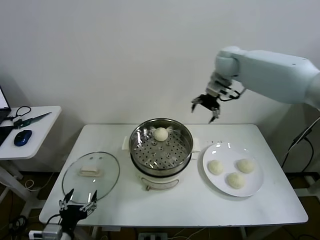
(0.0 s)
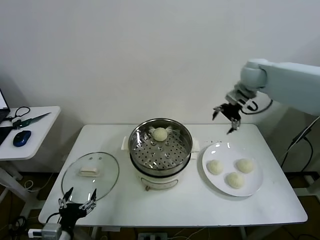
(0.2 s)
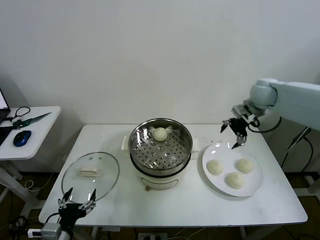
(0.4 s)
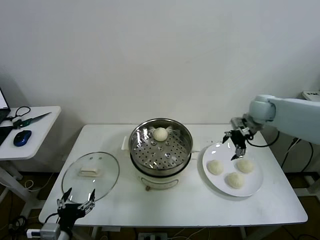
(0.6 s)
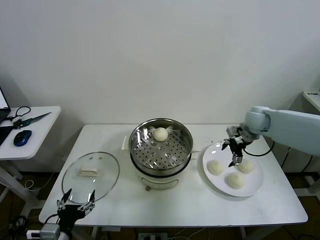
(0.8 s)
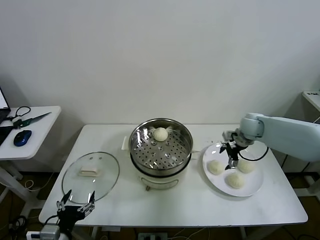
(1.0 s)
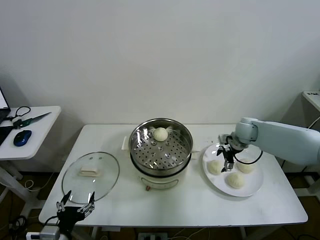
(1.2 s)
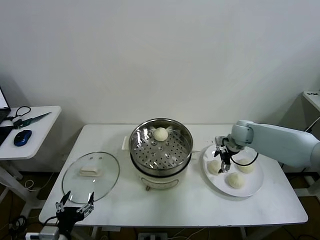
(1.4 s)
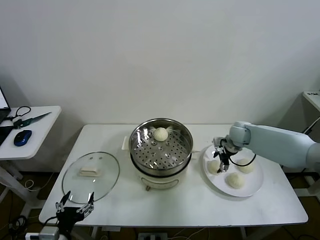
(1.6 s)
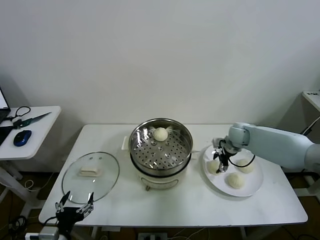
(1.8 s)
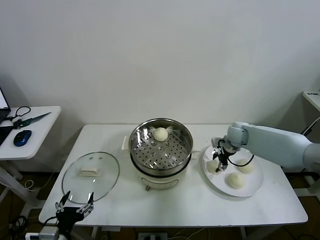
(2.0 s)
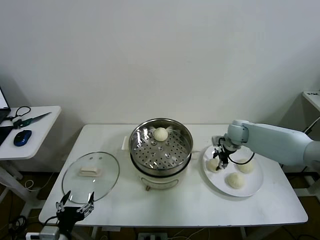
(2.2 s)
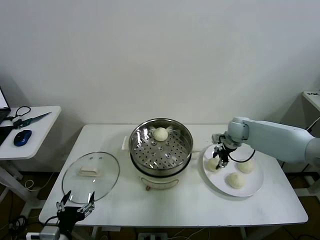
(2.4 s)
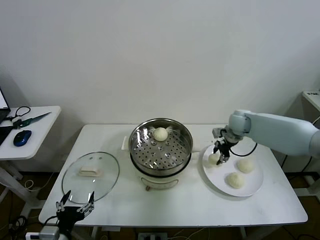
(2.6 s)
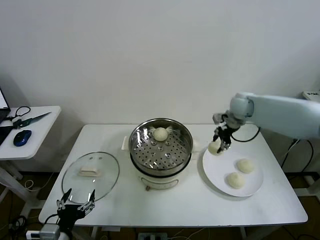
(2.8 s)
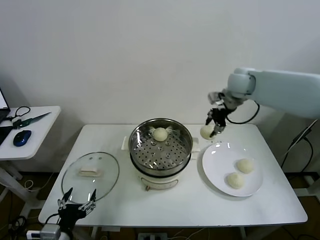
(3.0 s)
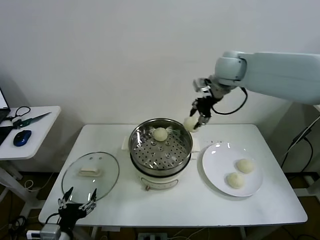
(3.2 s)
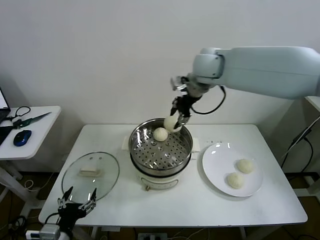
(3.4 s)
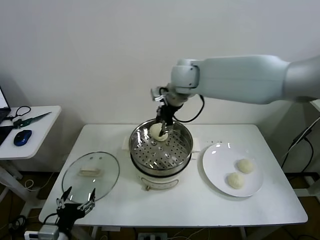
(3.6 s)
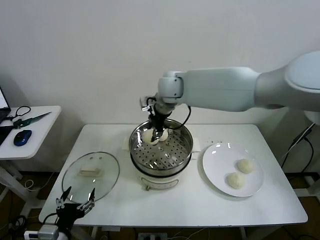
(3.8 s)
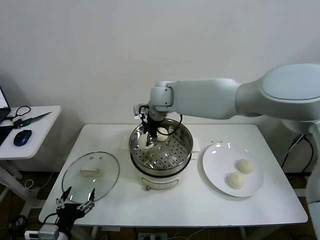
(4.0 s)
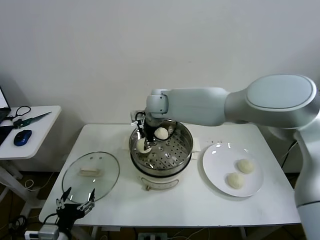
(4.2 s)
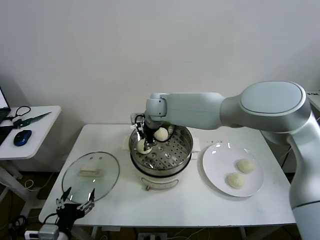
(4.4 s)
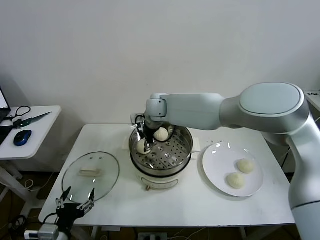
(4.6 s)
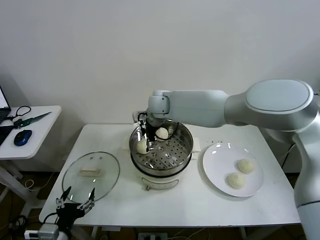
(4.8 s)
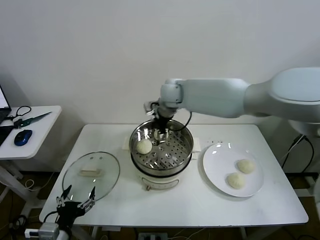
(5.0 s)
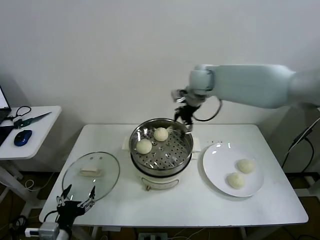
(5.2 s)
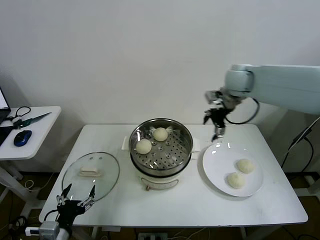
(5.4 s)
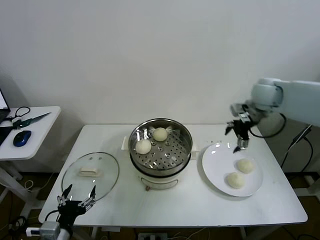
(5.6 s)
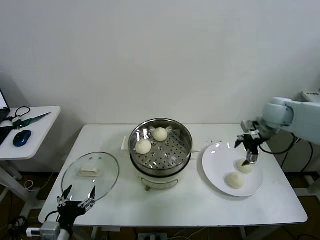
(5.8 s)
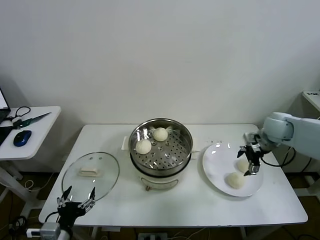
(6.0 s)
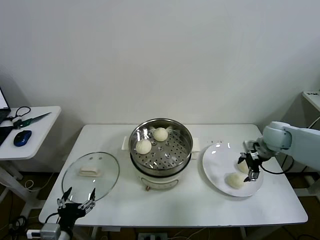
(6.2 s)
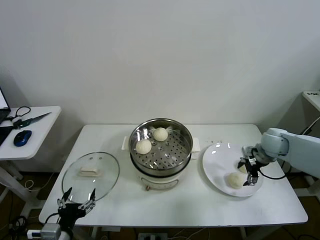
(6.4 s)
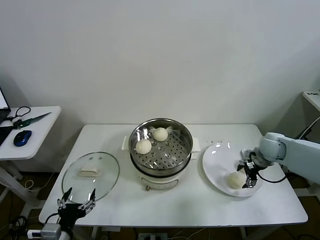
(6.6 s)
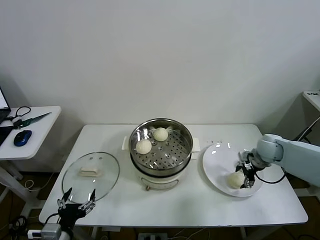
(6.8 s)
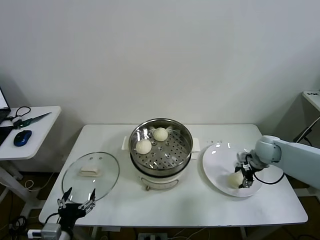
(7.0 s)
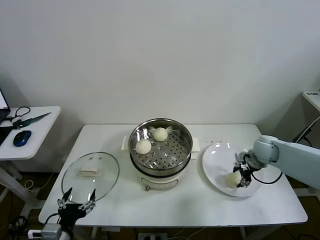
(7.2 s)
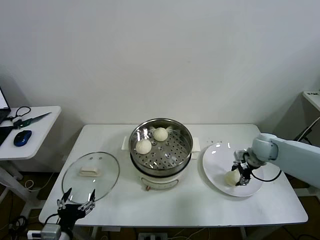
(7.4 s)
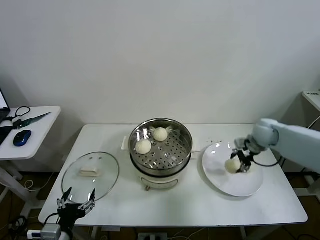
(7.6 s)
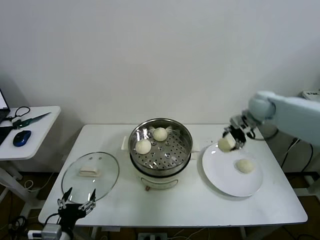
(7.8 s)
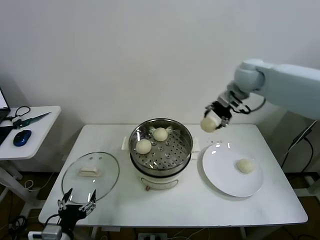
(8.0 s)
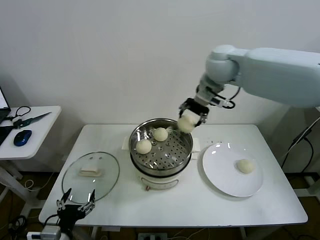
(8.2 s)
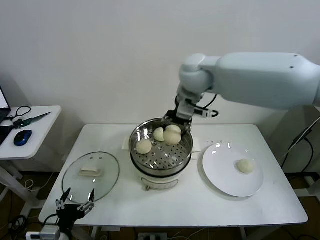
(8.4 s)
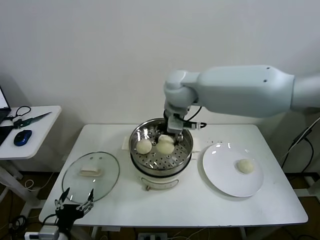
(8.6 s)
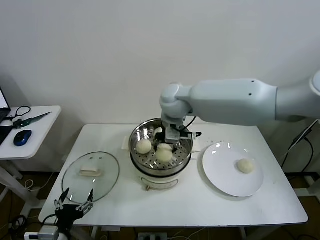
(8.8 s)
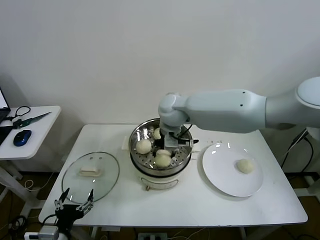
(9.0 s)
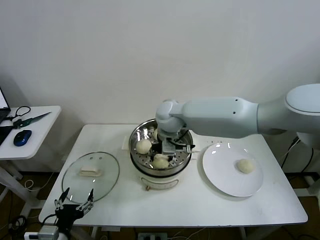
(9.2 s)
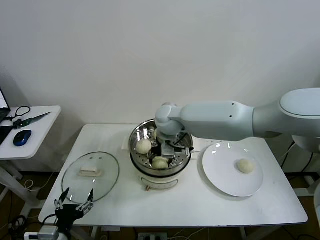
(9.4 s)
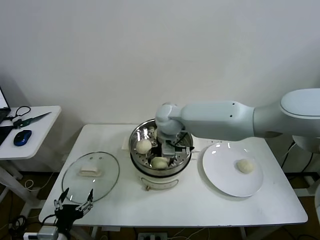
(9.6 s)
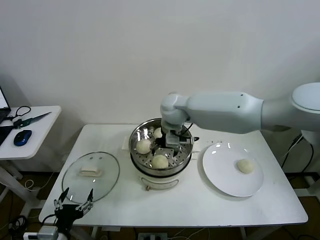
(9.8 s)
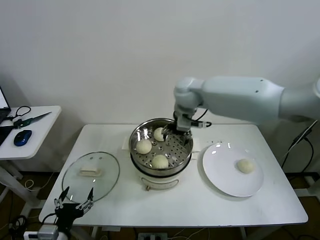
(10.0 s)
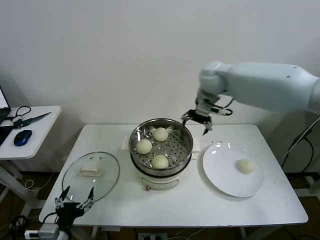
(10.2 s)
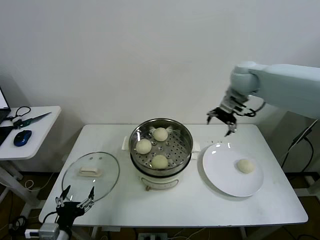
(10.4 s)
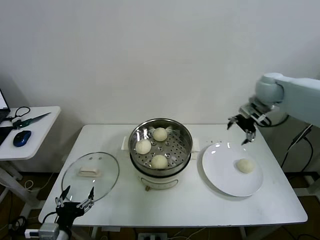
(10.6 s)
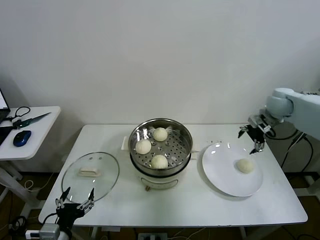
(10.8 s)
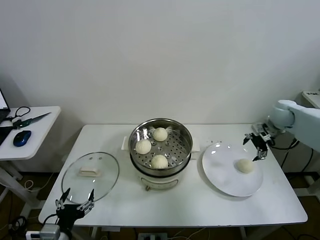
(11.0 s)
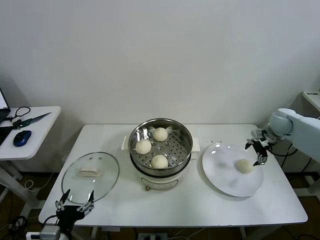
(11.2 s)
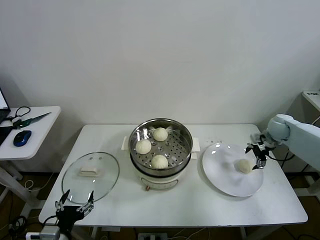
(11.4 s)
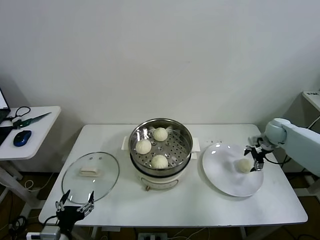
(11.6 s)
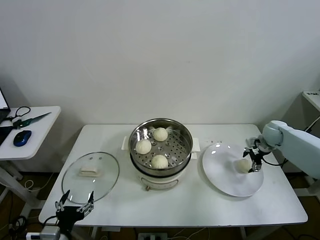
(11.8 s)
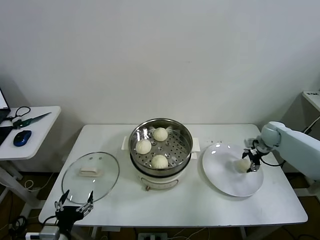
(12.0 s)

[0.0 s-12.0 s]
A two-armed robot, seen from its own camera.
Task of the whole recording: take steamed baozi put them in steamer then cover it.
Step, 0.0 to 2.0 s: Grasp the baozi in the plate with right gripper.
Step, 2.2 to 5.0 s: Place the baozi on the steamer with right gripper.
Step, 5.2 to 7.0 s: Grasp the baozi in the plate with right gripper.
Step, 7.2 to 9.8 s: Place the baozi on the steamer with right gripper.
0.0 to 1.6 s: The right gripper is displaced downward by roughly 25 cm.
1.6 to 3.0 s: The right gripper goes roughly 25 cm upward, and closes its fingers.
3.0 to 4.4 s: The right gripper shifts roughly 30 cm to the left and downward.
4.4 to 6.0 s: The right gripper heads to the right, covering about 40 cm, and opens.
6.0 to 7.6 s: The right gripper goes downward and returns, about 10 cm each way, and closes its fingers.
7.6 to 9.0 s: The right gripper is displaced to the left by approximately 35 cm.
9.0 to 10.4 s: The right gripper heads to the right, covering about 25 cm, and opens.
10.4 to 12.0 s: The right gripper moves downward and to the right, approximately 30 cm, and closes.

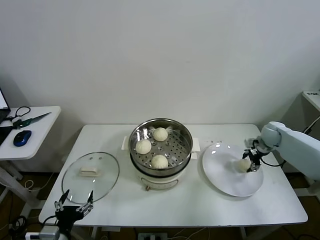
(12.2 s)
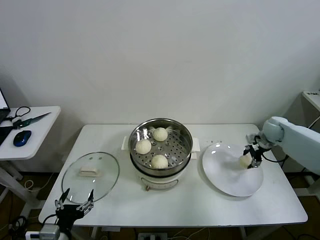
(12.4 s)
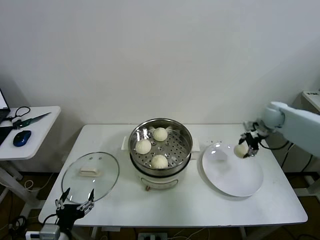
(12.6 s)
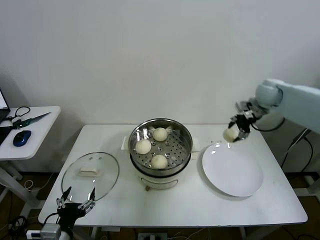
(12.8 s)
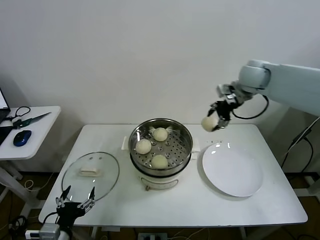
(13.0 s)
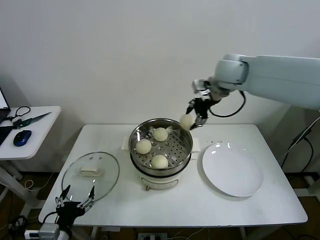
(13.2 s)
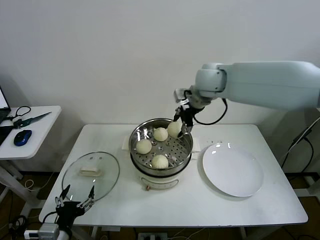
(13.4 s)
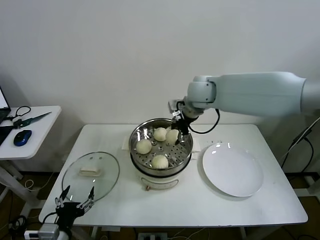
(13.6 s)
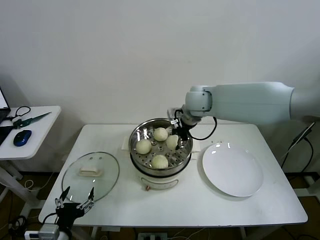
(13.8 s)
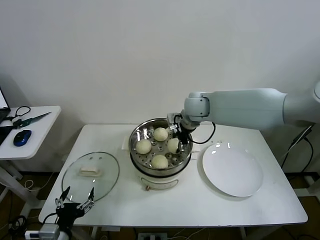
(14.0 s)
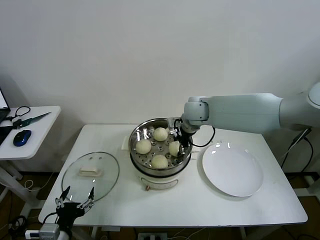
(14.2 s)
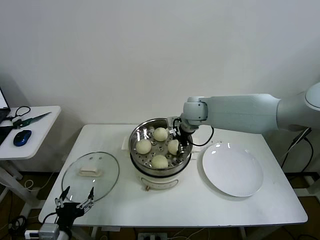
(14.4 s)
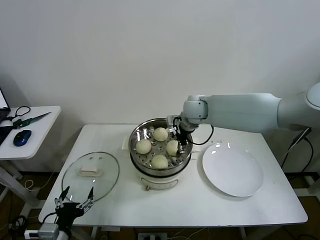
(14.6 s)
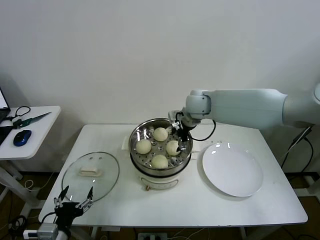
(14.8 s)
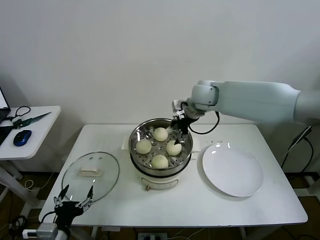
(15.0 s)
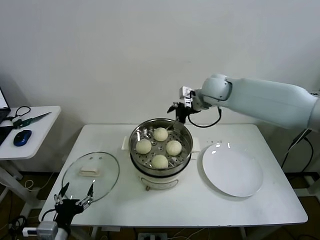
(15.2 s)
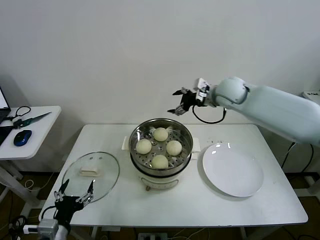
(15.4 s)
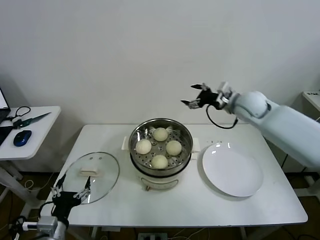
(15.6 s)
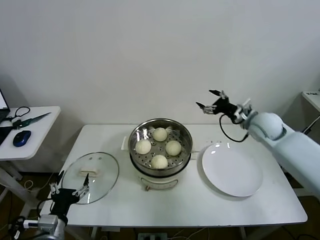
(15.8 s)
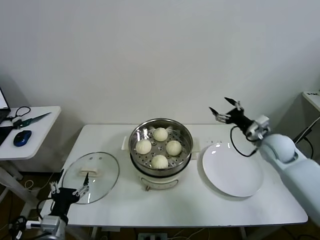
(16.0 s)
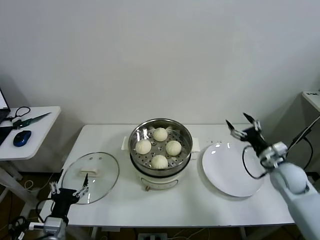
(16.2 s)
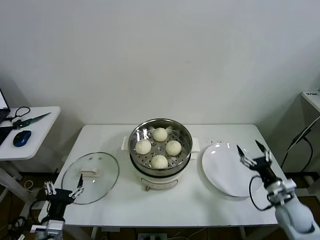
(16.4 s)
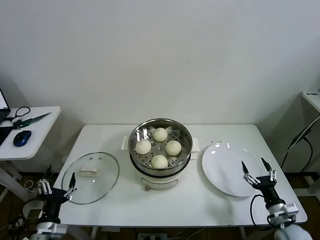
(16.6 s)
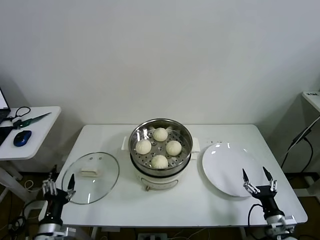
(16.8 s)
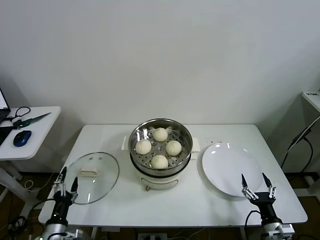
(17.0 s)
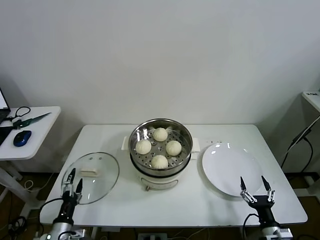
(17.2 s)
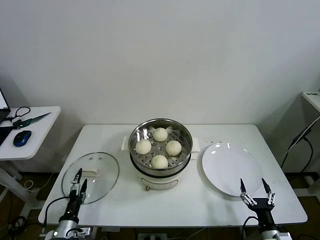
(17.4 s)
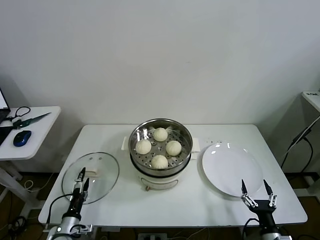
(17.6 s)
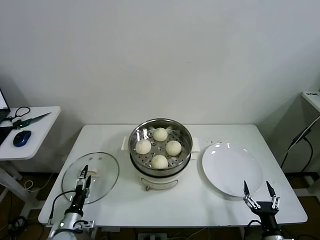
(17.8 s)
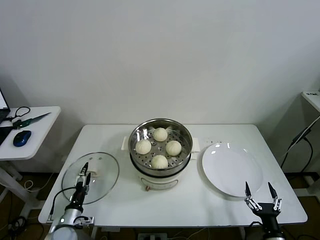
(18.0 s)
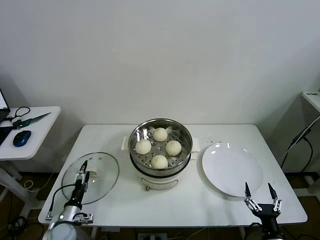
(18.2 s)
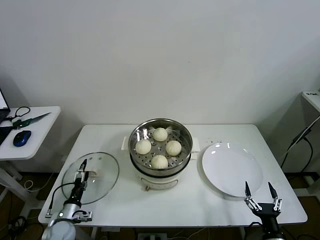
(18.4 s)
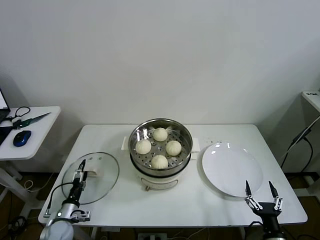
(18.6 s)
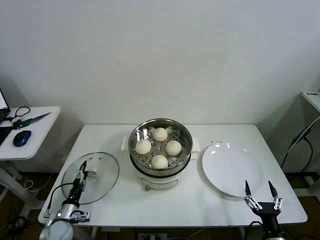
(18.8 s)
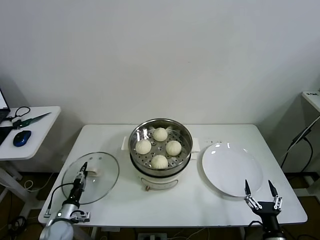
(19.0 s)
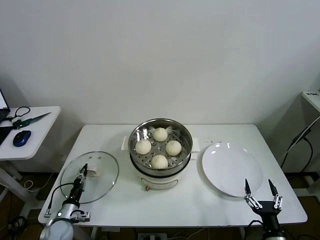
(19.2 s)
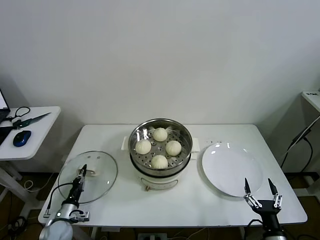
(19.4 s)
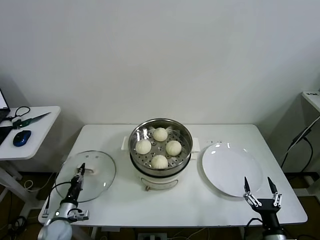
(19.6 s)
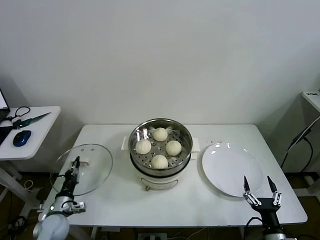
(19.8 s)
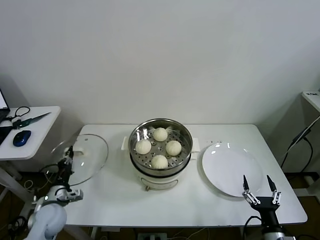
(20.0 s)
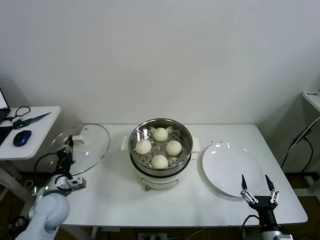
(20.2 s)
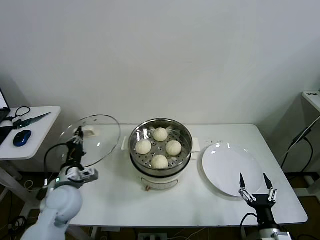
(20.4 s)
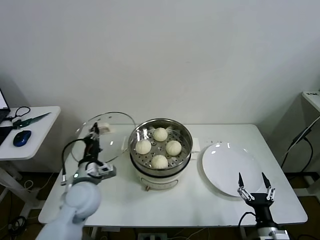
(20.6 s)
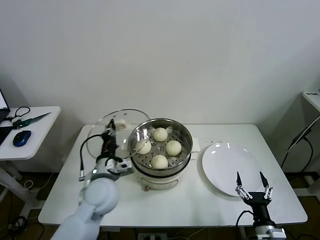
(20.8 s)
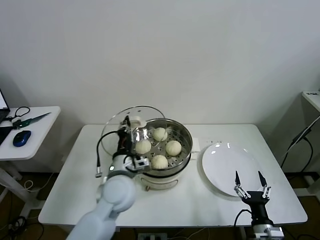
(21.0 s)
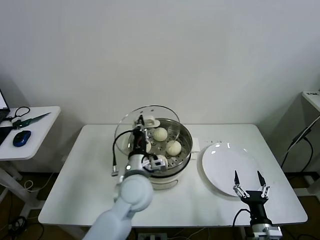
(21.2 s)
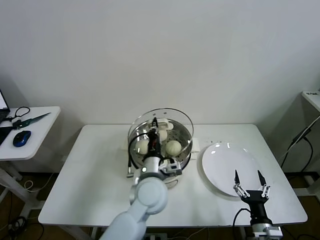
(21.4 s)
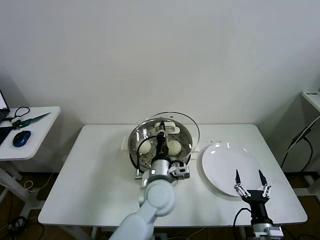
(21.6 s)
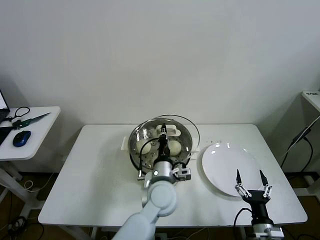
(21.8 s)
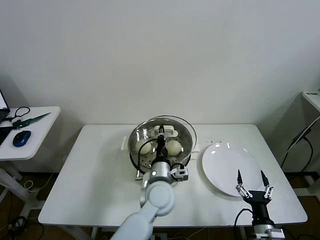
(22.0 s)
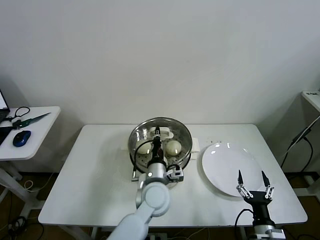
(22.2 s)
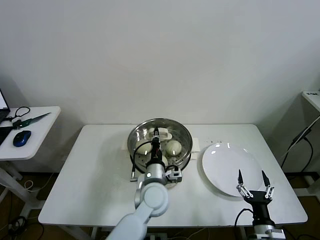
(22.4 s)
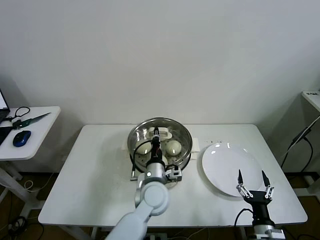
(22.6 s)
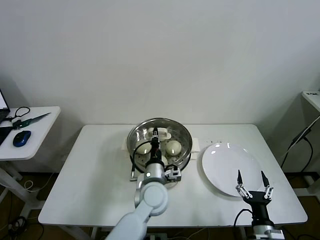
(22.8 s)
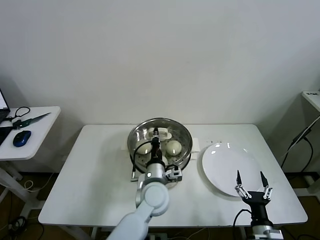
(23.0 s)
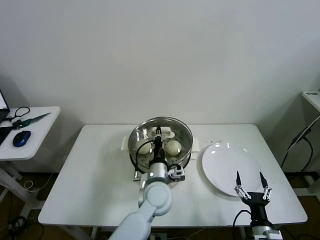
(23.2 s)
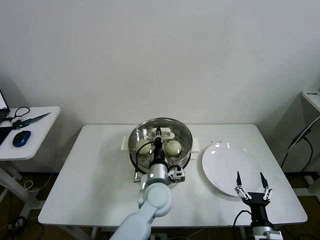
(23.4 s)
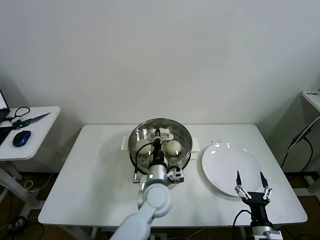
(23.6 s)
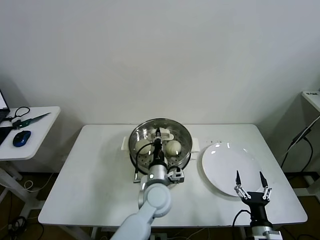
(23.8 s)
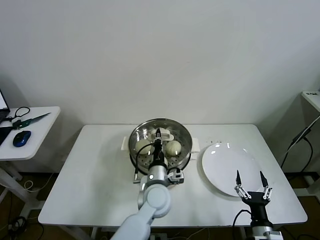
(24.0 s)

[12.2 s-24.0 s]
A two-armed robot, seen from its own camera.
Task of the whole recording: take steamed baozi put them in steamer then cover it.
Step, 12.2 to 15.0 s: Place the baozi on the steamer with right gripper.
Step, 15.2 to 19.4 s: Grasp the pot lid with left gripper.
12.2 to 13.6 s: The right gripper travels to the left and upward by roughly 40 cm.
13.6 to 15.2 s: The right gripper is displaced to the right by approximately 5 cm, reaches about 10 cm downward, then returns, and opens up.
15.2 to 16.6 s: The left gripper ends up roughly 5 cm from where it was. Meanwhile the right gripper goes some 50 cm downward, backward and to the right.
16.6 to 18.2 s: The right gripper goes roughly 10 cm backward and to the left. The left gripper travels downward and forward by some 15 cm.
18.2 to 19.6 s: The left gripper closes.
19.6 to 21.0 s: The left gripper goes some 35 cm to the right and upward.
21.0 to 22.6 s: The left gripper shifts about 10 cm to the right and downward.
22.6 to 24.0 s: The grippers stay close to where they were, moving slightly.
